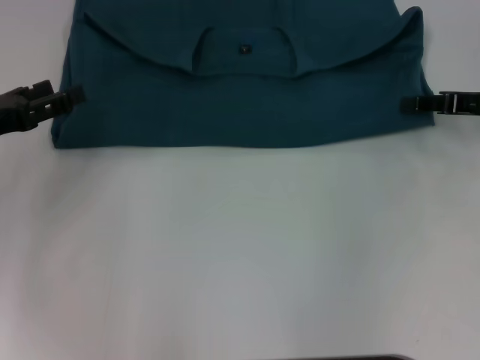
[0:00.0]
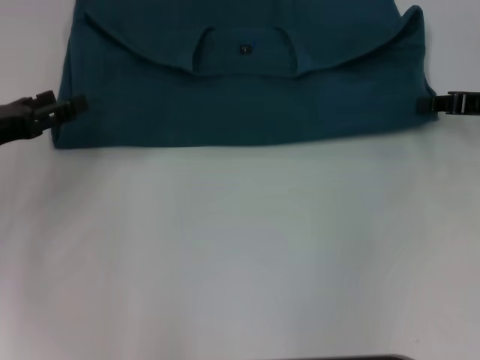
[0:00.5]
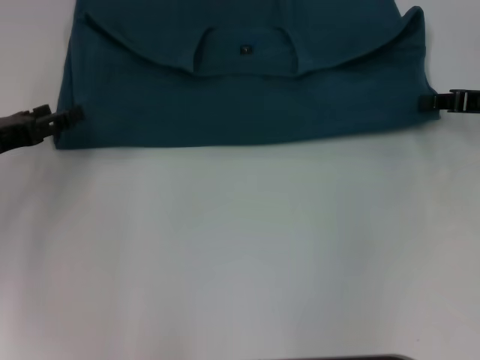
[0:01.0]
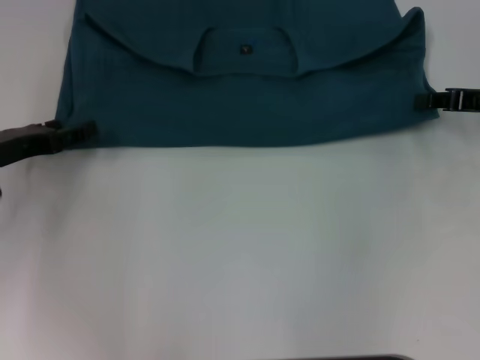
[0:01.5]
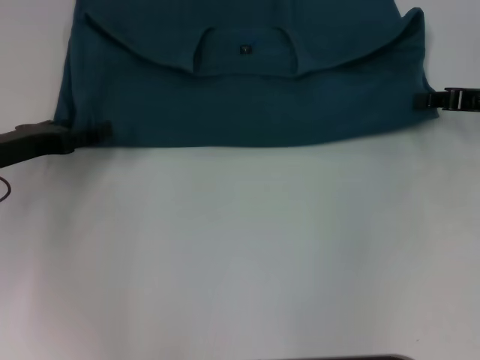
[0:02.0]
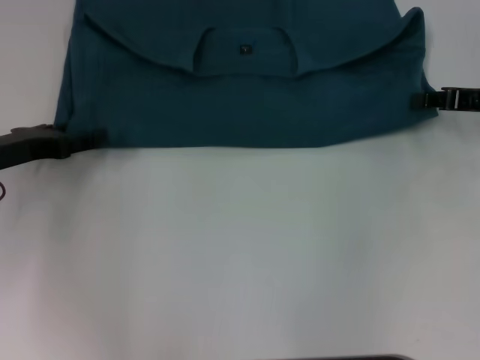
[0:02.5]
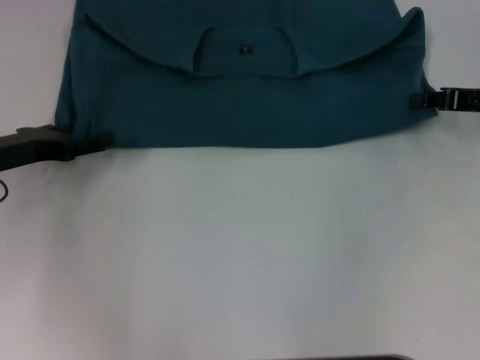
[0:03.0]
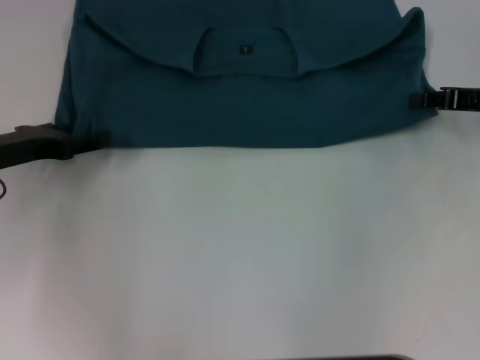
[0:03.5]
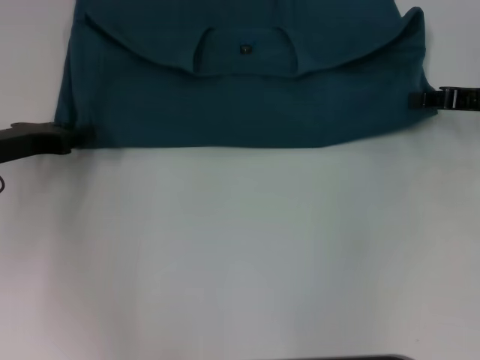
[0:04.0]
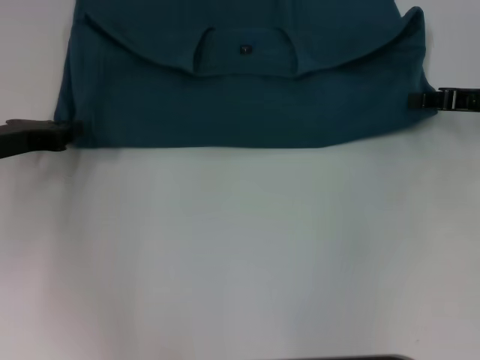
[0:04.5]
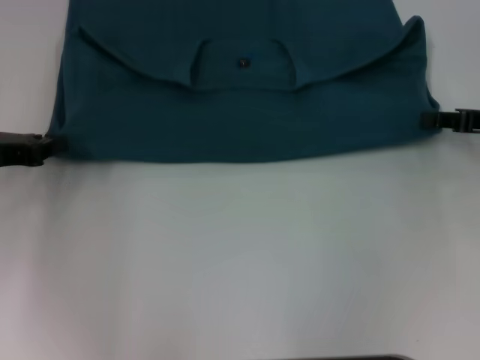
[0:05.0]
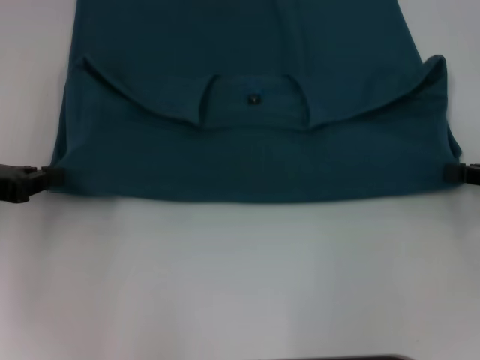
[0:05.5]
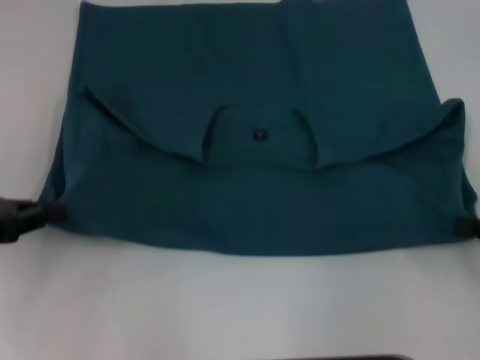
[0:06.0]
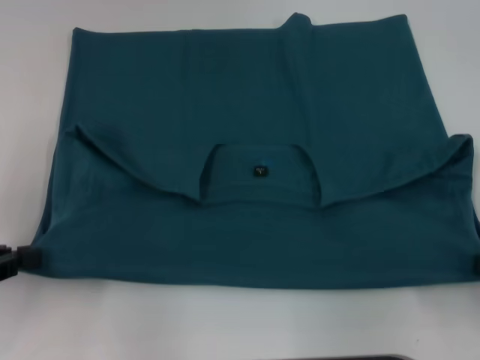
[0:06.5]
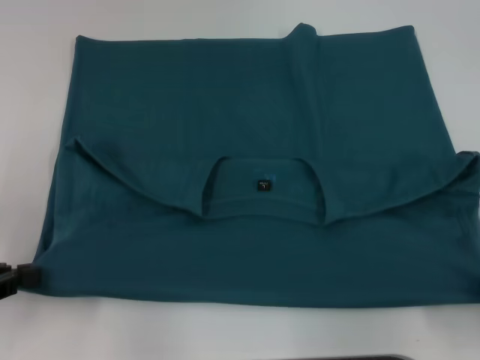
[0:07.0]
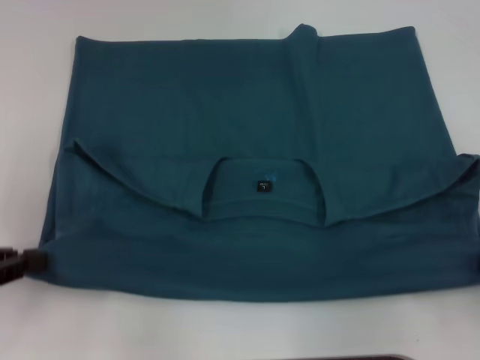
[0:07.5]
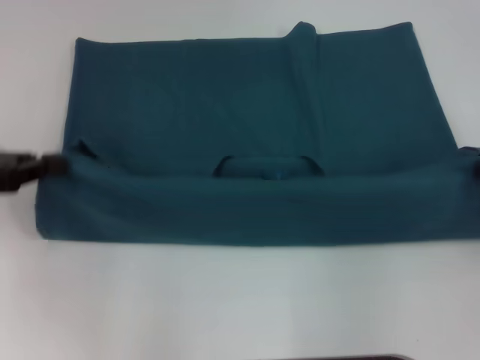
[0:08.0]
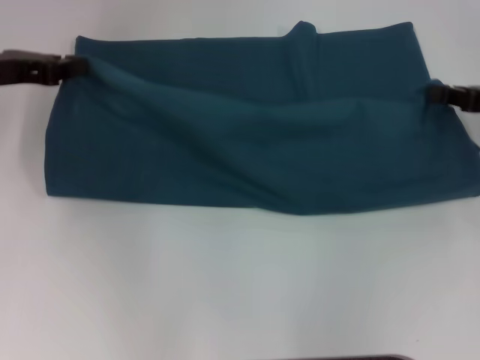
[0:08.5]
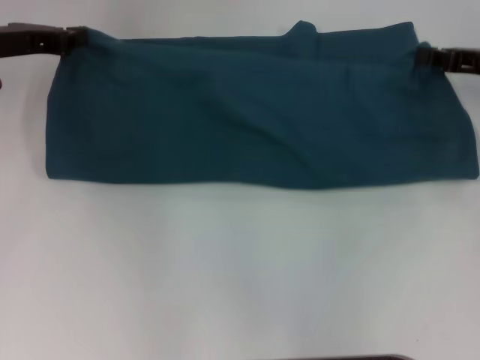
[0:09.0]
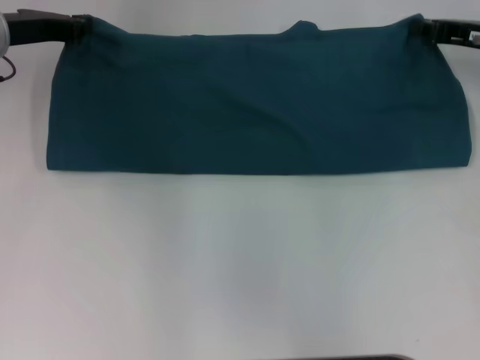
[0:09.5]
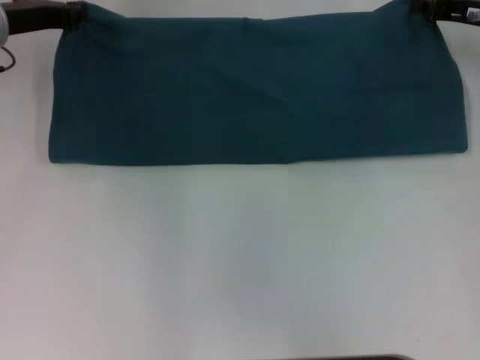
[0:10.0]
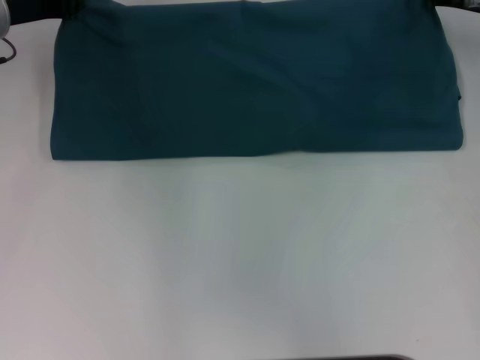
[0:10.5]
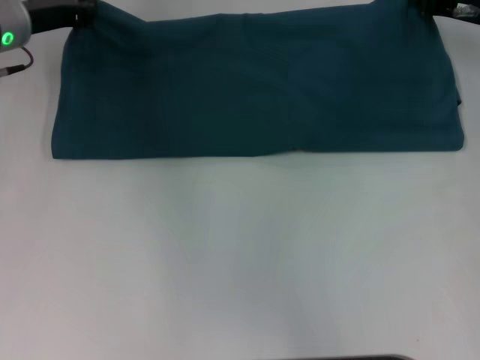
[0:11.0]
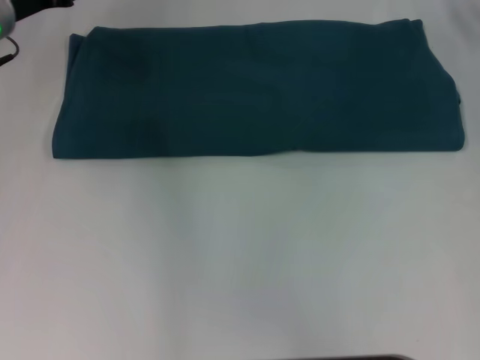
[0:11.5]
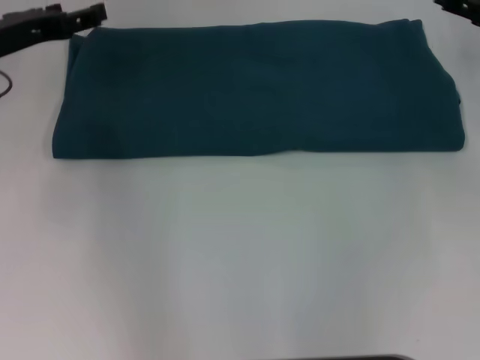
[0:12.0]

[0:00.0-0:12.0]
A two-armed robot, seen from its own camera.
Step, 0:00.0 to 0:06.5: Pull the clothes with your left hand.
Step, 0:00.0 to 0:06.5: Pull the clothes with your right hand.
Step, 0:07.0 to 0:11.0: Fold the clothes to the left.
Step, 0:07.0 to 0:11.0: Fold the clothes to the right.
0:00.0 to 0:02.0: The right gripper closes.
0:04.0 to 0:06.0: The right gripper moves backward, roughly 15 cm; the left gripper is displaced backward by approximately 10 cm, and closes up.
0:06.0 to 0:08.0: The right gripper moves approximately 5 cm backward and comes back.
0:08.0 to 0:10.0: The right gripper shifts some 20 cm forward and to the left. Meanwhile the left gripper shifts approximately 15 cm forward and to the right.
0:10.0 to 0:12.0: The right gripper moves roughly 5 cm, and opens. The left gripper shifts roughly 5 cm backward, and opens up.

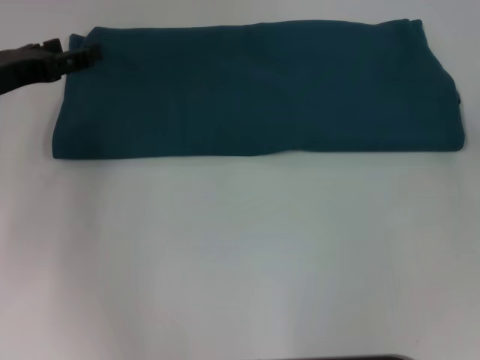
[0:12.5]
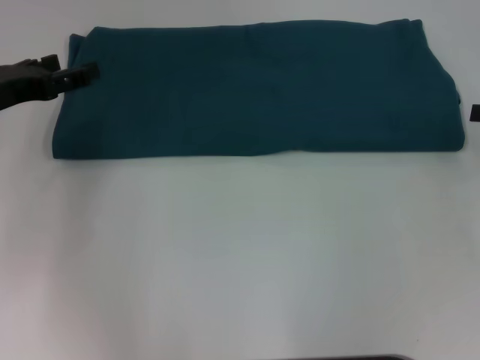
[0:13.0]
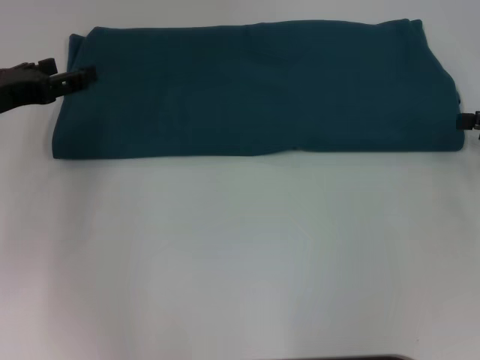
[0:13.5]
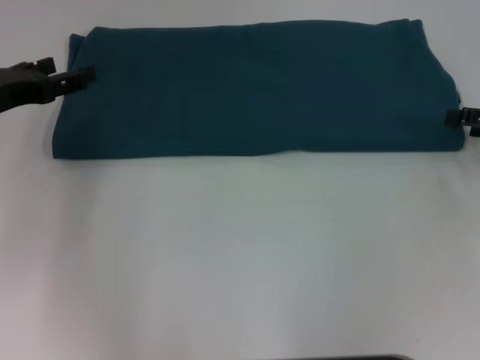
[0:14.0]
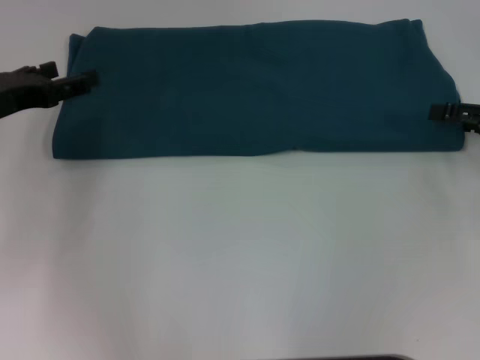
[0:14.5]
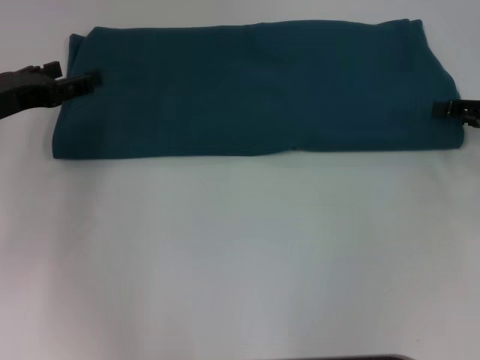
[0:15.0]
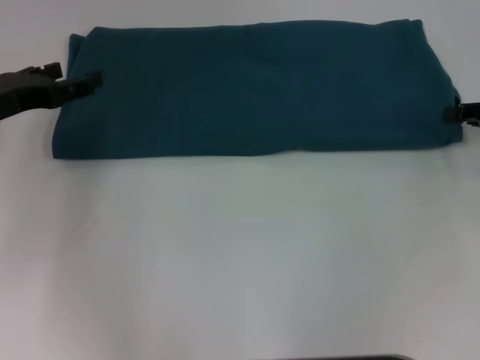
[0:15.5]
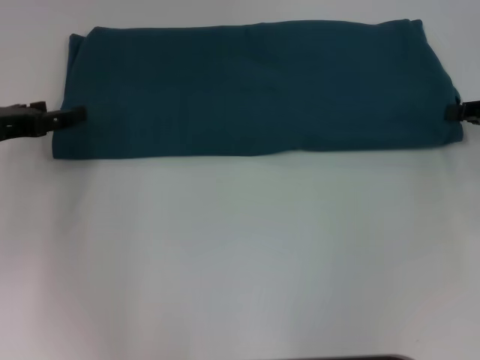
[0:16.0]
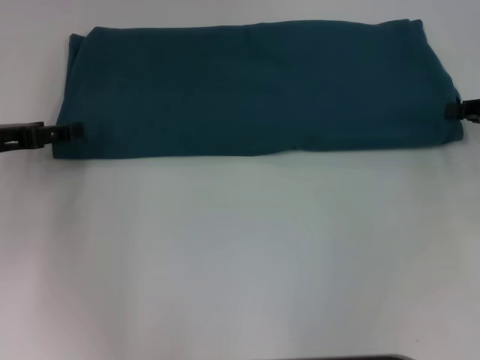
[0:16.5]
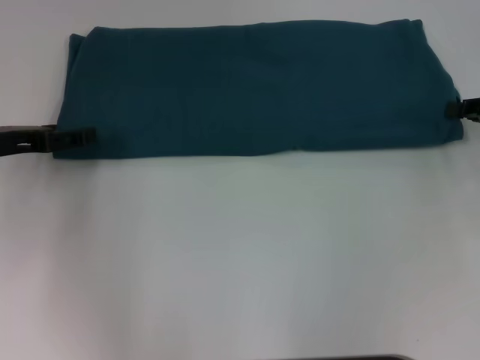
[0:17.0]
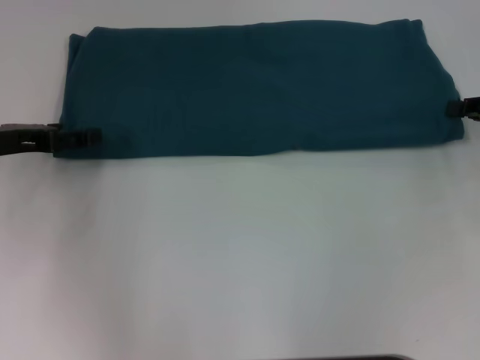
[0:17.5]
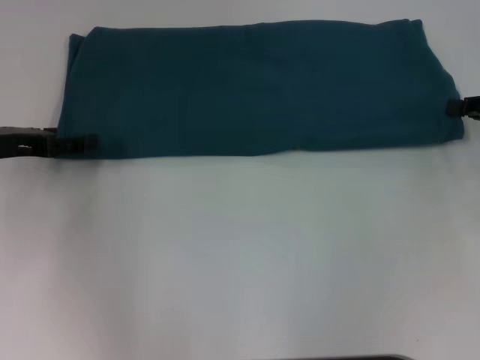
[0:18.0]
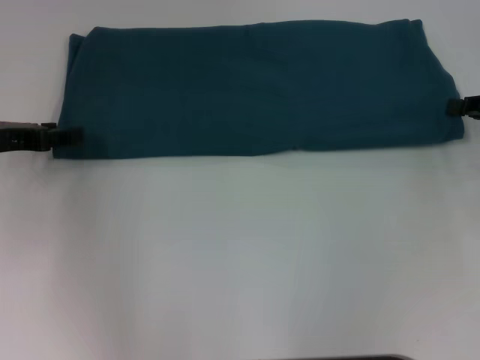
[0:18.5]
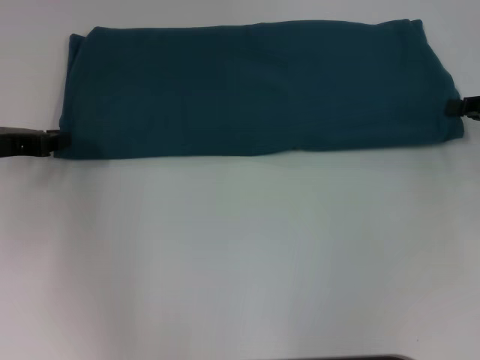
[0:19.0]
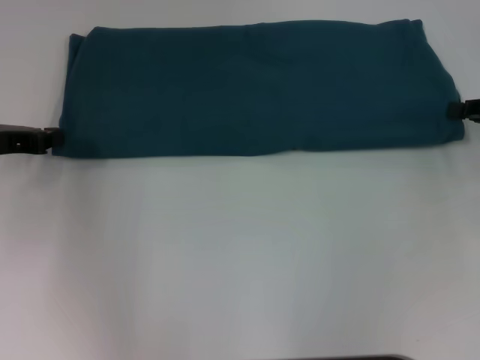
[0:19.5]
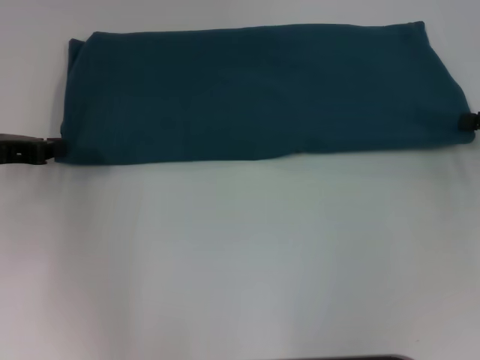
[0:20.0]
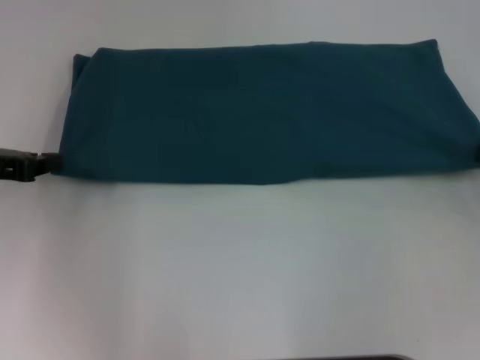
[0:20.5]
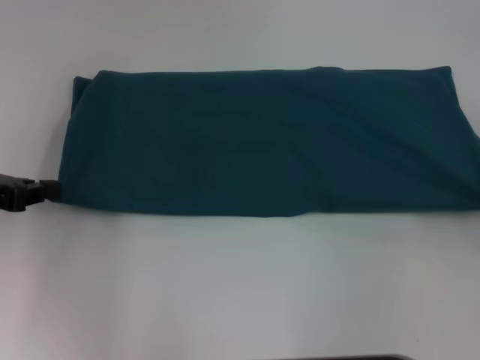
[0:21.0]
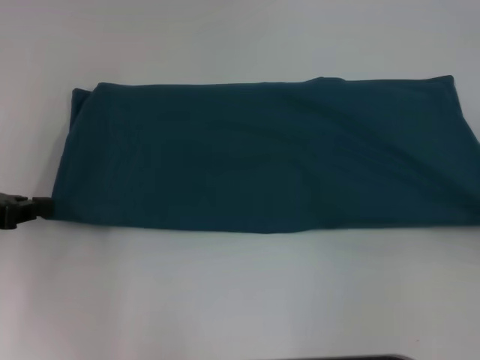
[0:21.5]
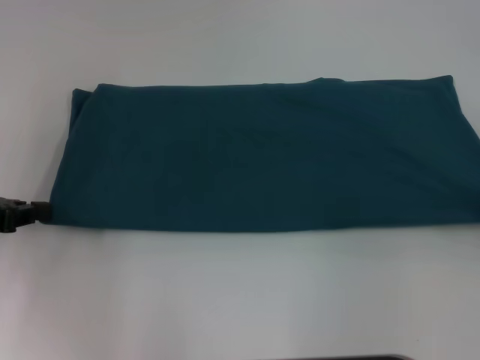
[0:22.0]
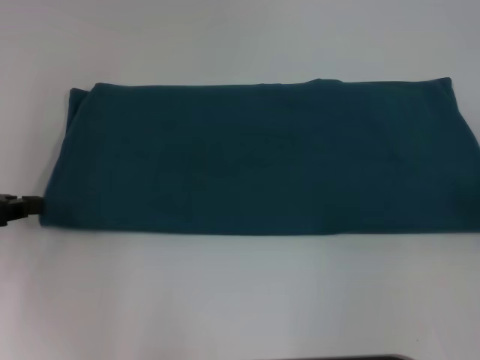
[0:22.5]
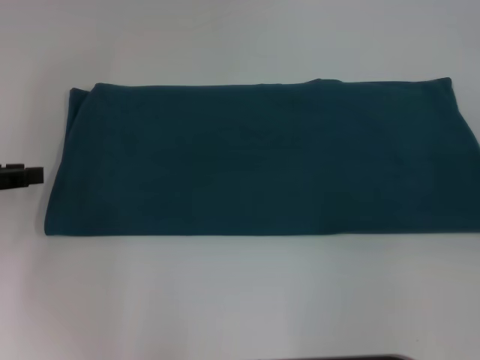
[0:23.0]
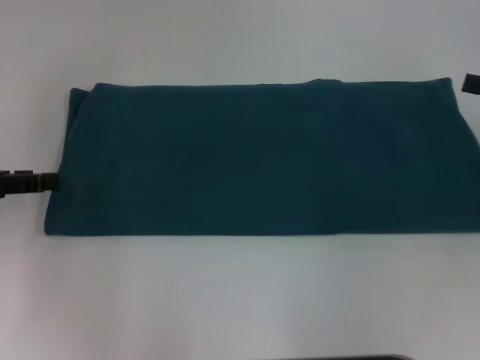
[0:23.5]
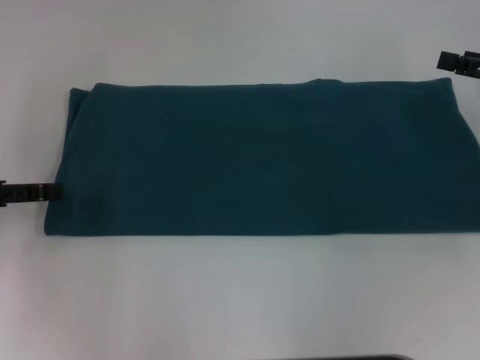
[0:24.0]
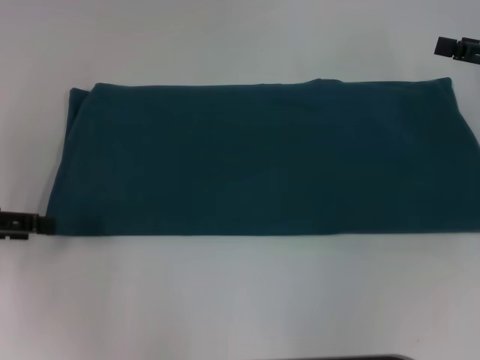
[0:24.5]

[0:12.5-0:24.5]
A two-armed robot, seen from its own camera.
Step, 0:12.5 to 0:22.5: Pull the clothes with your left hand.
Step, 0:12.5 to 0:22.5: Pull the clothes with your right hand.
0:14.5 to 0:16.5: The right gripper closes.
0:18.5 to 0:20.5: The left gripper closes; the right gripper goes about 5 cm backward.
0:20.5 to 0:22.5: The right gripper ends up approximately 5 cm from where it was.
0:22.5 to 0:24.5: The left gripper opens, while the right gripper moves forward and to the left, roughly 10 cm, and opens its fingers.

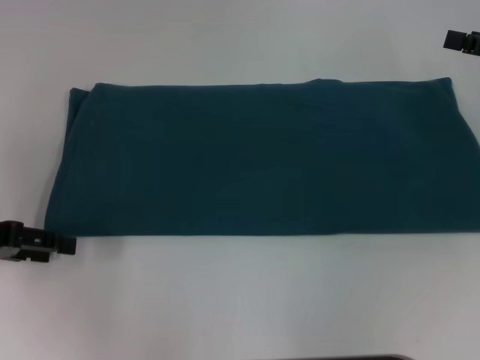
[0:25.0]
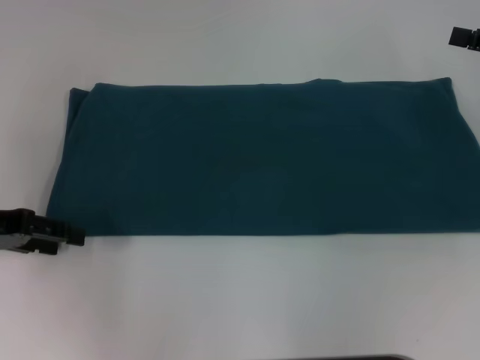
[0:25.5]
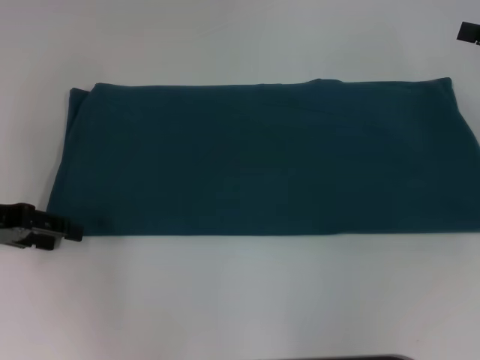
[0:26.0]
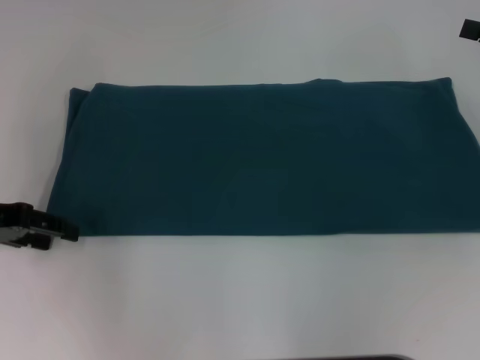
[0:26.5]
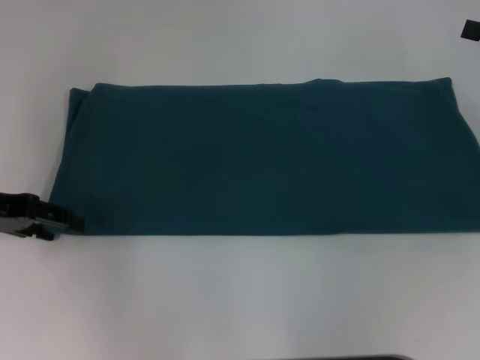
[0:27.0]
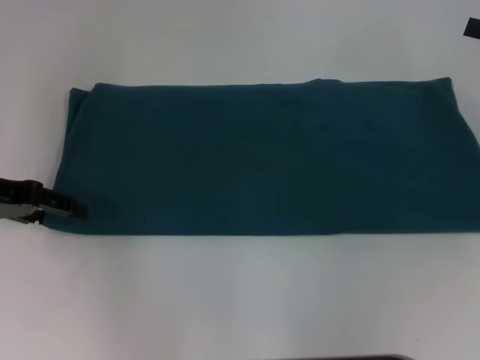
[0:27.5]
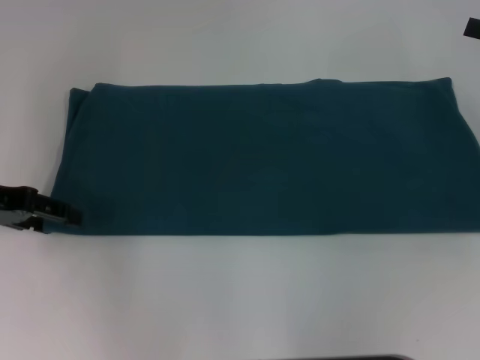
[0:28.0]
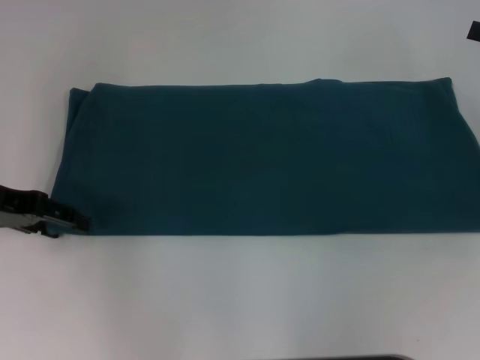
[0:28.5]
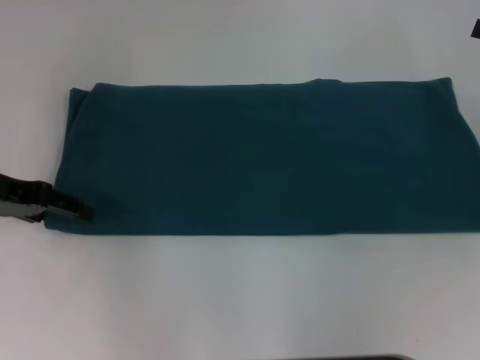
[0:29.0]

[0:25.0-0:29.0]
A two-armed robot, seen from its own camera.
0:25.0 to 0:27.0: The grippers move only a little.
0:27.0 to 0:29.0: The grippers make only small movements.
